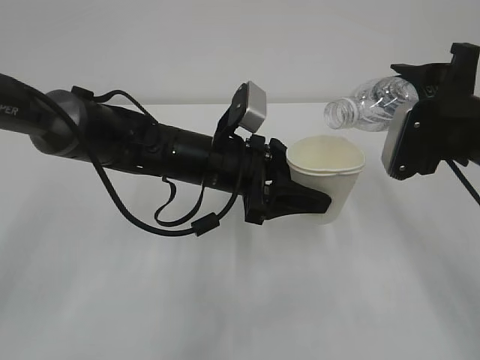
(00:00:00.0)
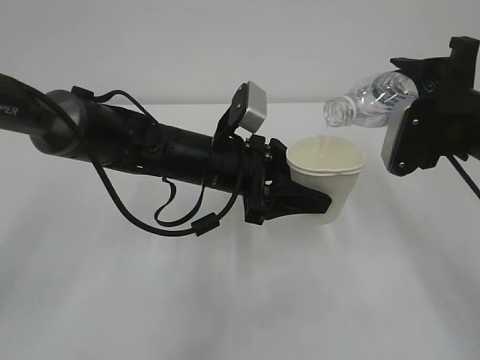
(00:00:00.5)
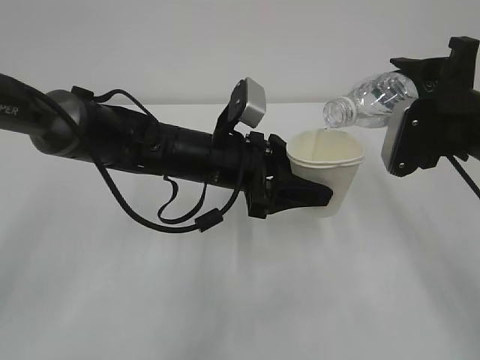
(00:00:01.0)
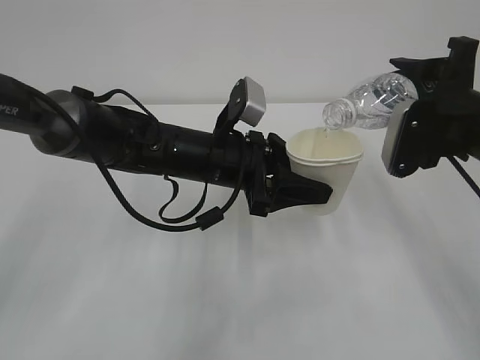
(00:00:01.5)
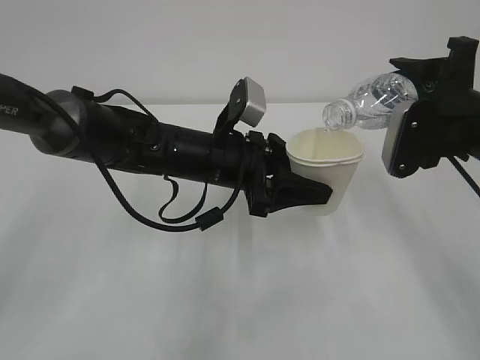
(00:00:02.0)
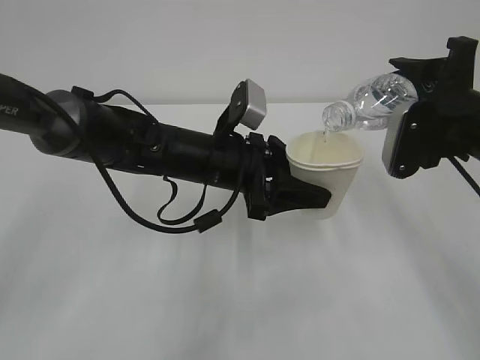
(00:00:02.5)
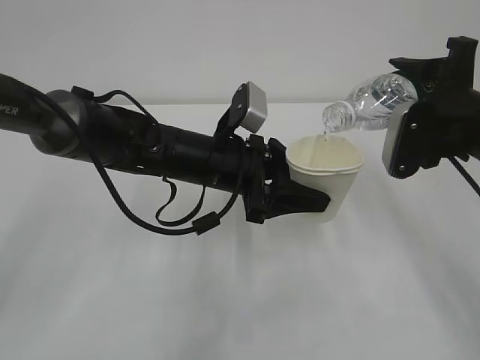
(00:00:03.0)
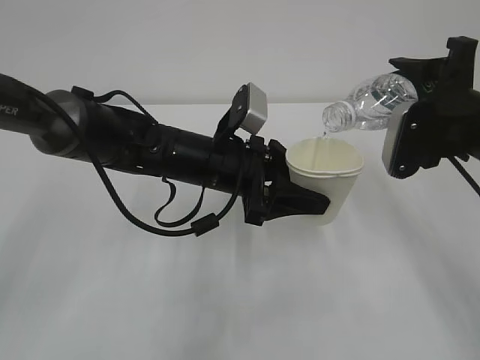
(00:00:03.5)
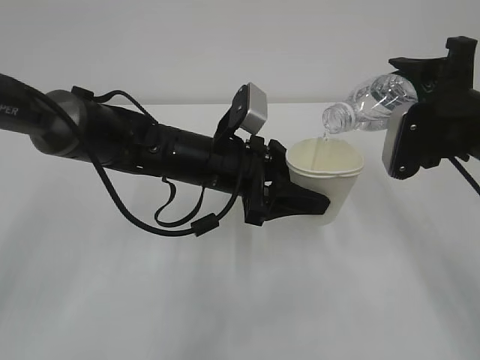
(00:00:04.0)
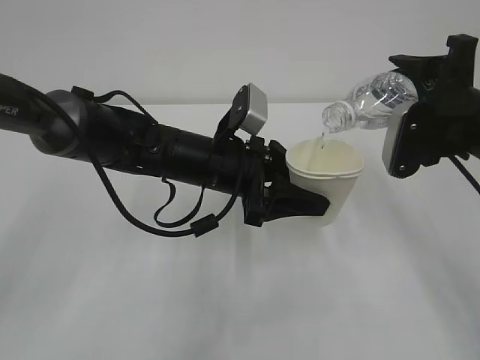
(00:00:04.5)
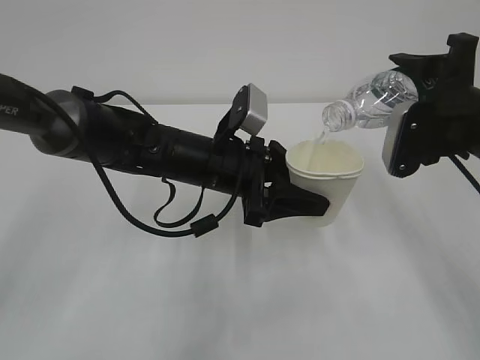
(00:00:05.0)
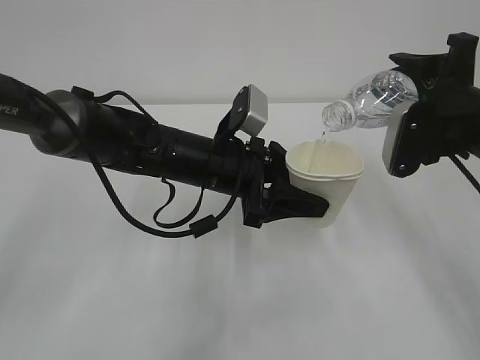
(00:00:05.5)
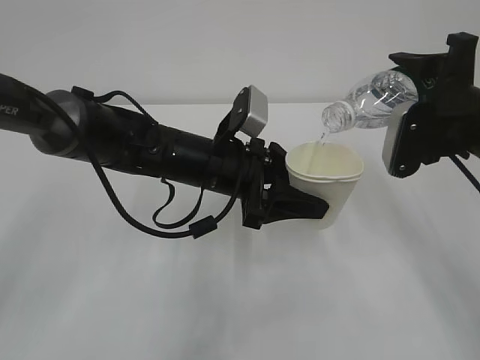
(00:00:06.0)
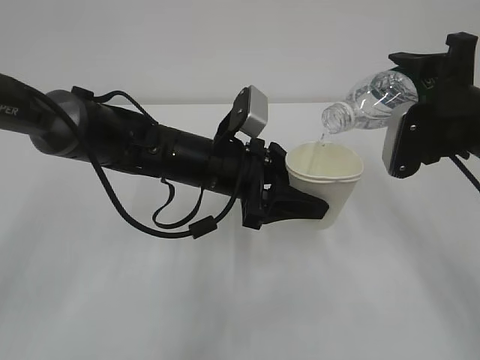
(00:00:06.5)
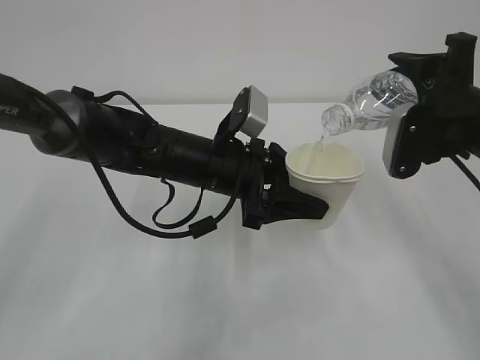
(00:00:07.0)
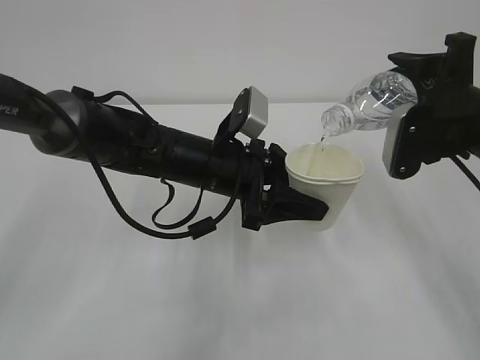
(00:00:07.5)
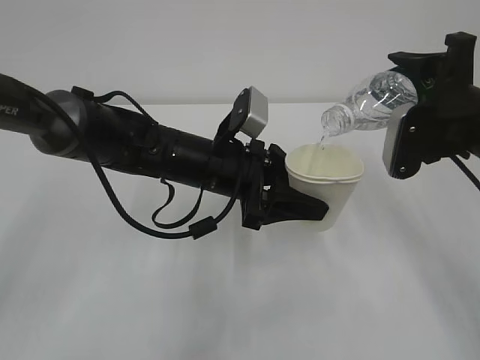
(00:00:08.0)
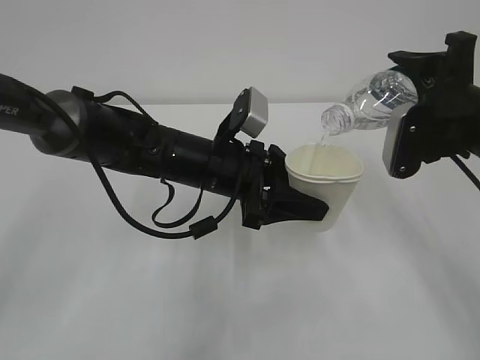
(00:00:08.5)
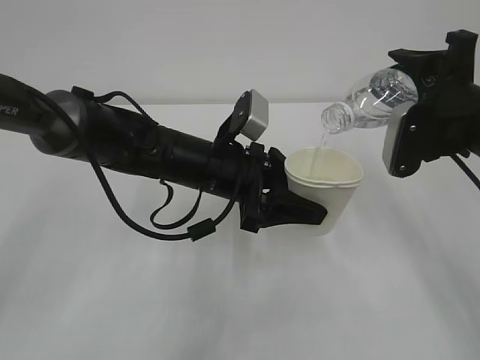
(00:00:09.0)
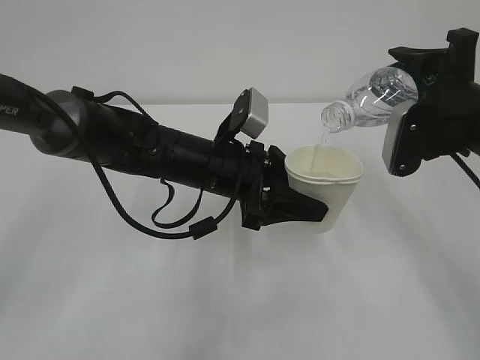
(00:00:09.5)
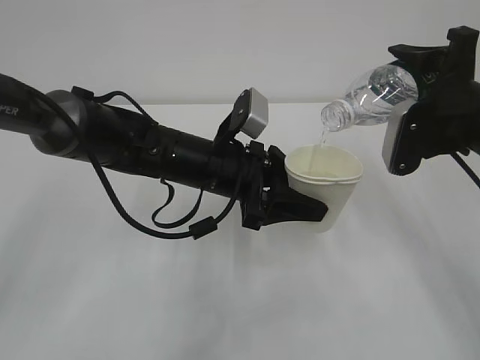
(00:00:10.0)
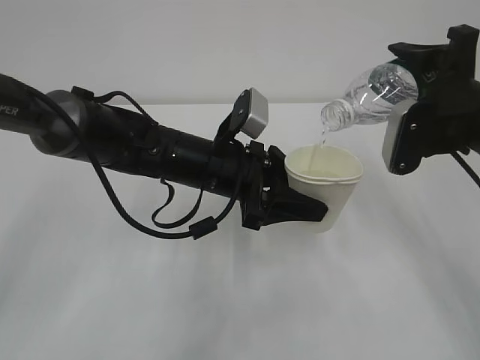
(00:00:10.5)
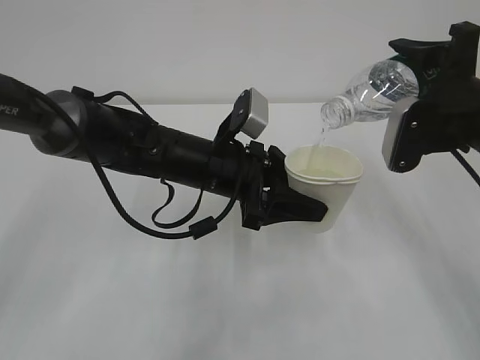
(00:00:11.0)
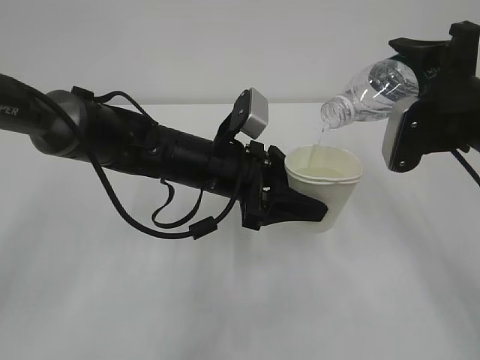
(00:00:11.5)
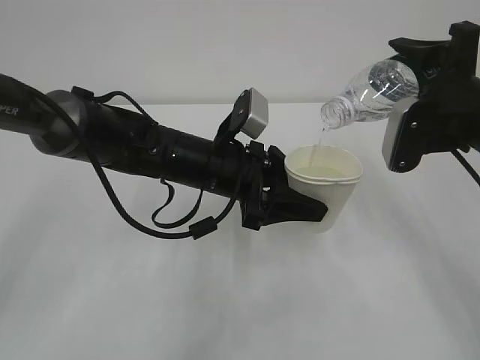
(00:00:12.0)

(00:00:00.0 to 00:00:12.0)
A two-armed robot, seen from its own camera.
00:00:00.0 - 00:00:02.0: Neither gripper changes place.
00:00:02.0 - 00:00:06.0: The two grippers keep their place.
00:00:06.0 - 00:00:10.0: Neither gripper changes place.
00:00:10.0 - 00:00:12.0: Both grippers stay put.

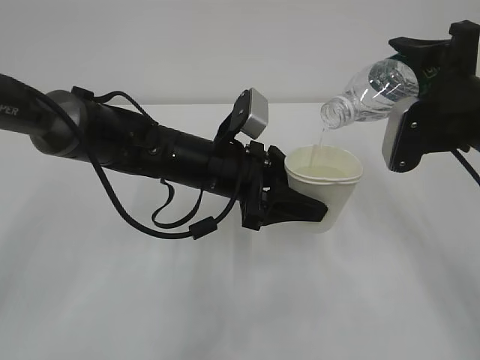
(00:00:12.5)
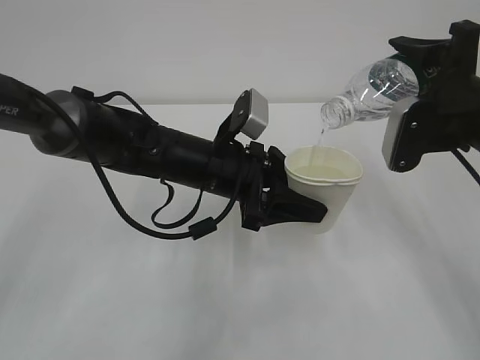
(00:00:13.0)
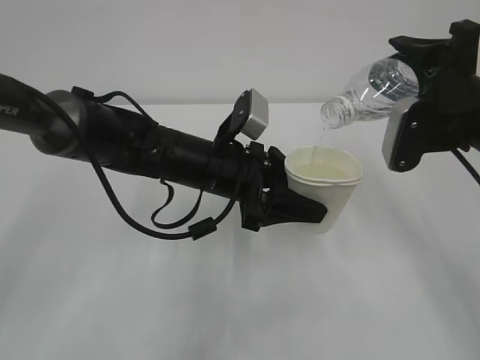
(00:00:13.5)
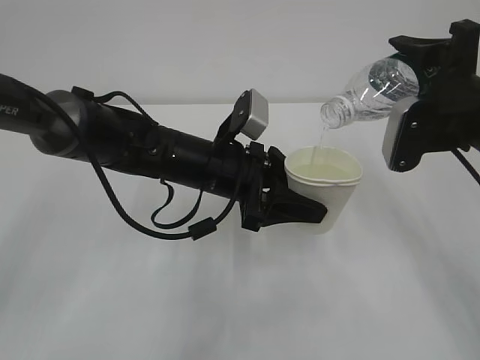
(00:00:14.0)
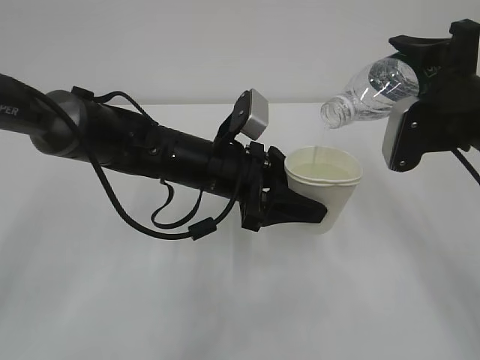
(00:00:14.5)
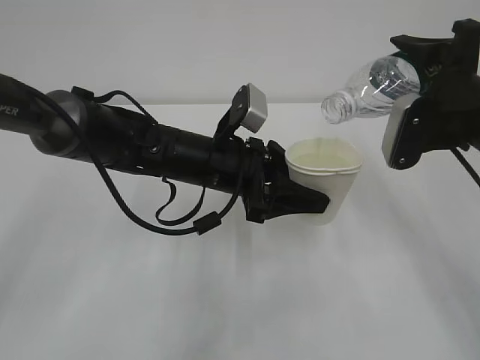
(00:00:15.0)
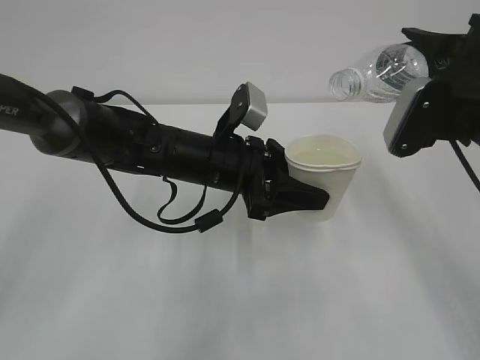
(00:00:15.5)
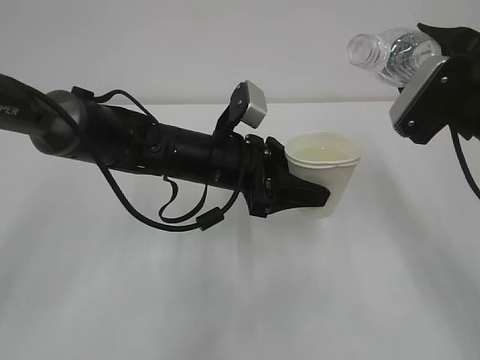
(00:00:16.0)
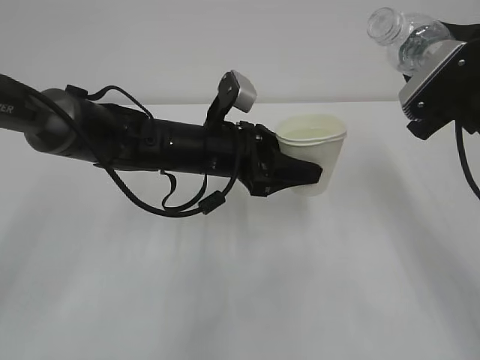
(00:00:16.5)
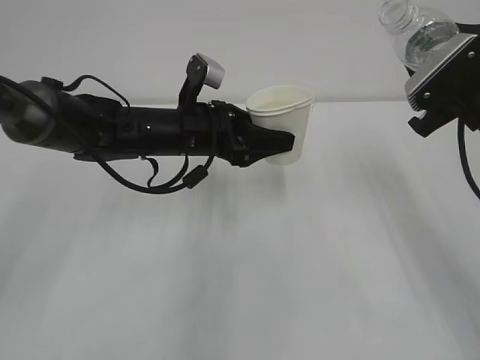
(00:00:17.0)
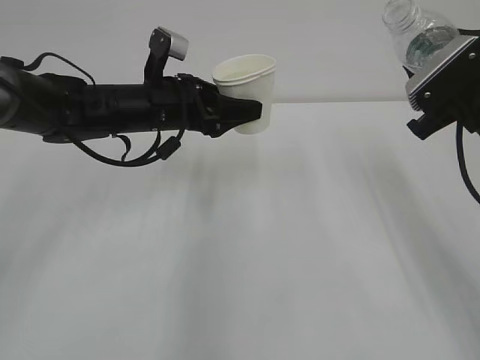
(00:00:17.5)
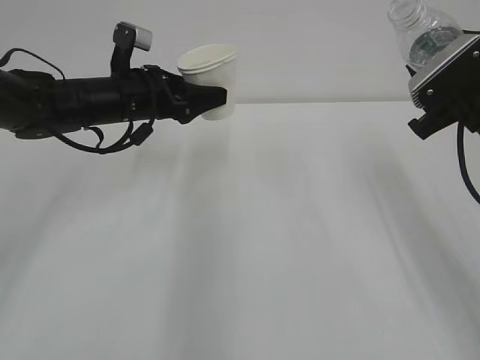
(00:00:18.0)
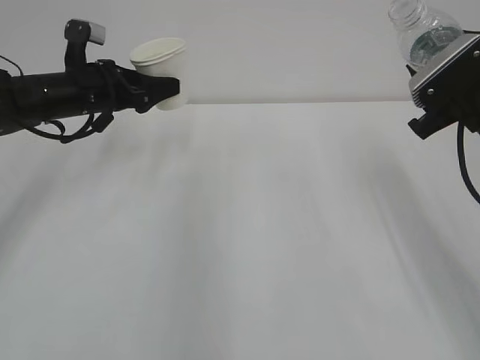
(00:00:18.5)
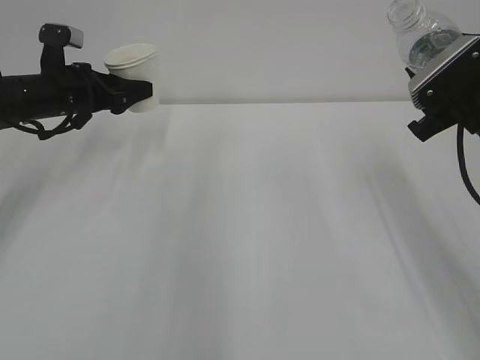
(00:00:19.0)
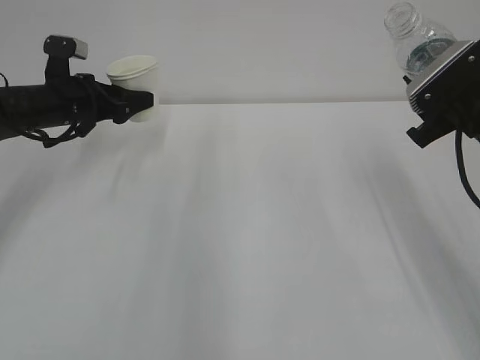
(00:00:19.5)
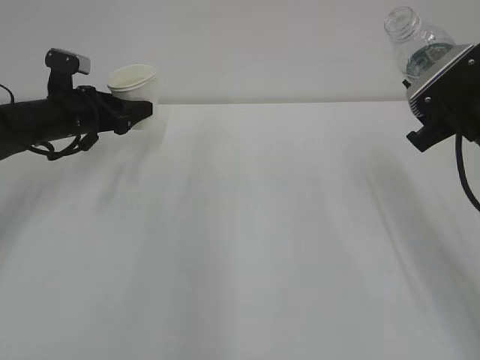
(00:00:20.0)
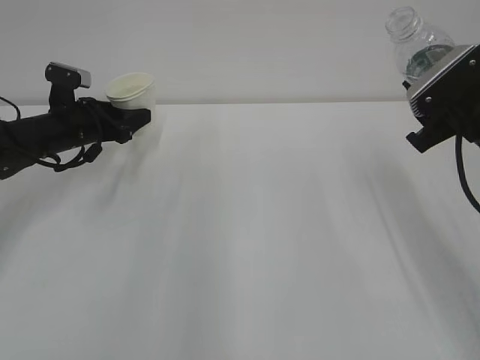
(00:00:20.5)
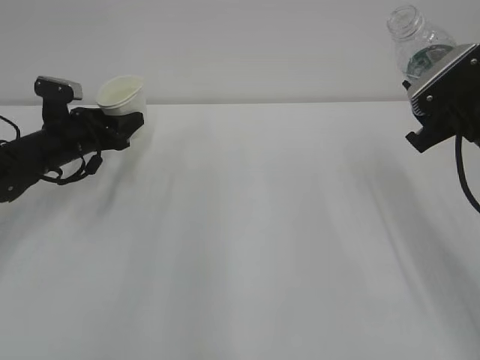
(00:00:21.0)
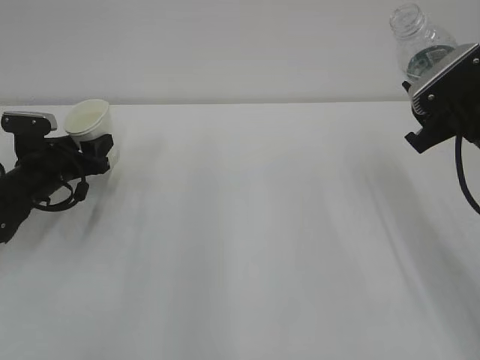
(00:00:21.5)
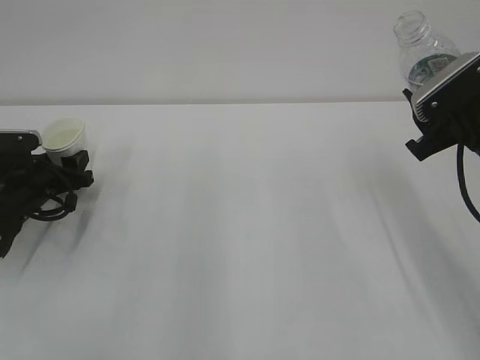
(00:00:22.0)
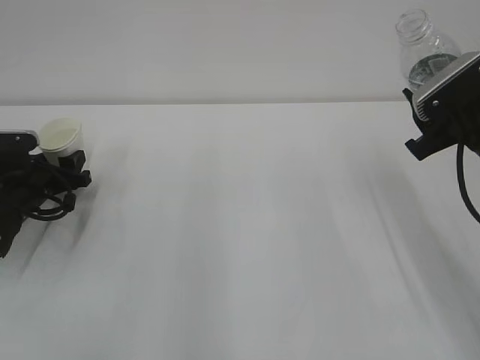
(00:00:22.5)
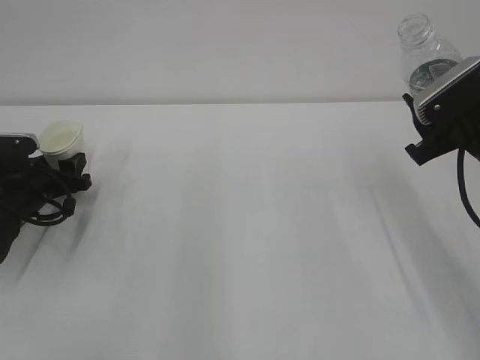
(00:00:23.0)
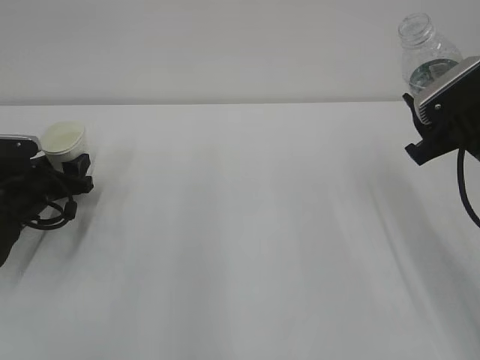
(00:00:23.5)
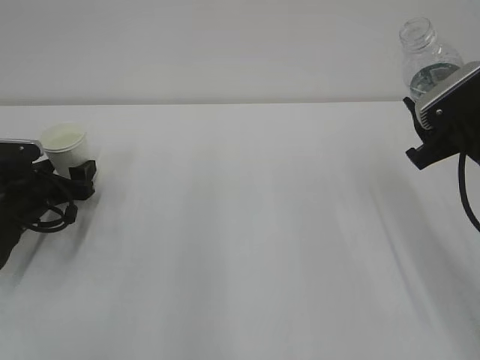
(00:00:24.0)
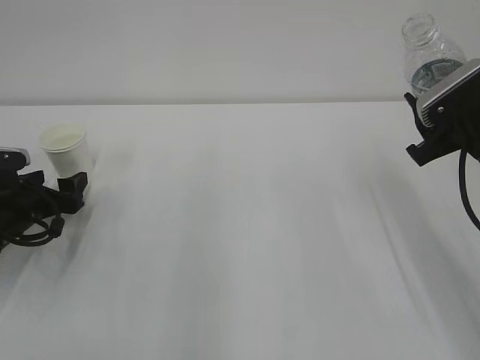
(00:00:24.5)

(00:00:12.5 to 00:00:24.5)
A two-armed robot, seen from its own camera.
00:00:12.5 - 00:00:14.5: Both grippers stay about where they are.
00:00:16.5 - 00:00:18.5: The left gripper travels to the left and forward by approximately 20 cm.
00:00:18.5 - 00:00:20.5: The left gripper is displaced downward by about 5 cm.
00:00:20.5 - 00:00:22.5: The left gripper travels backward, downward and to the left by roughly 10 cm.
00:00:22.5 - 00:00:24.5: The left gripper opens its fingers.

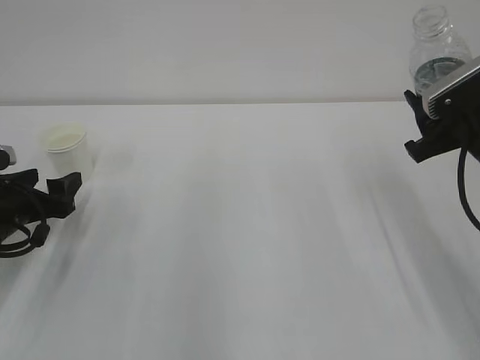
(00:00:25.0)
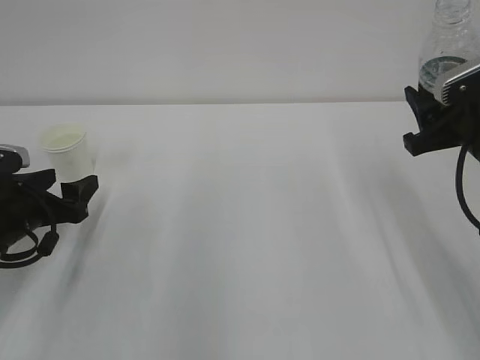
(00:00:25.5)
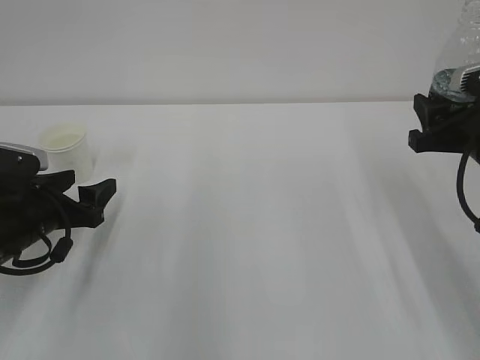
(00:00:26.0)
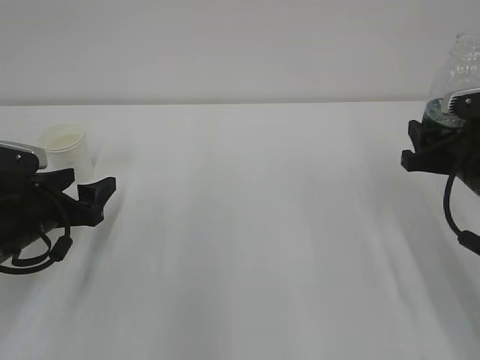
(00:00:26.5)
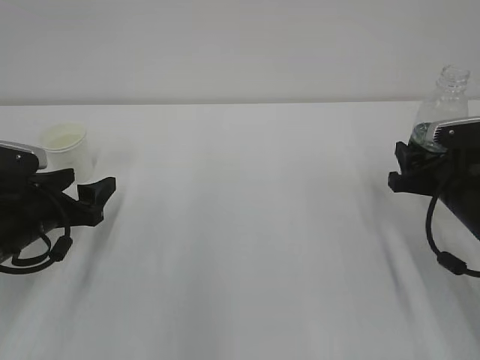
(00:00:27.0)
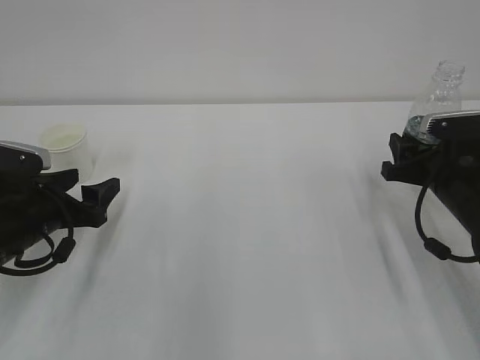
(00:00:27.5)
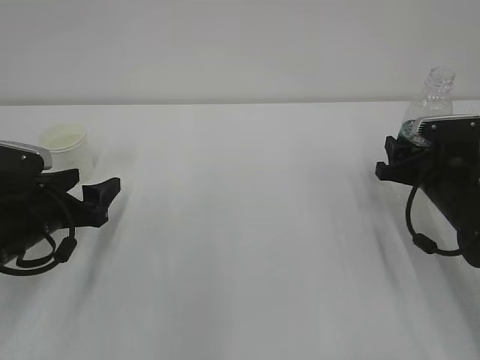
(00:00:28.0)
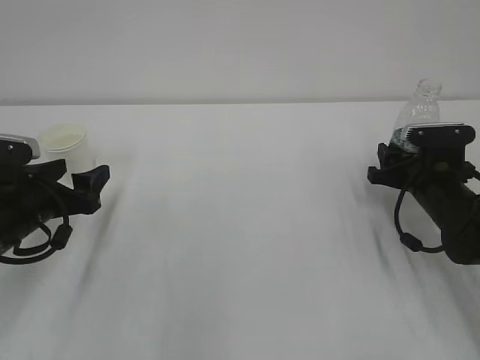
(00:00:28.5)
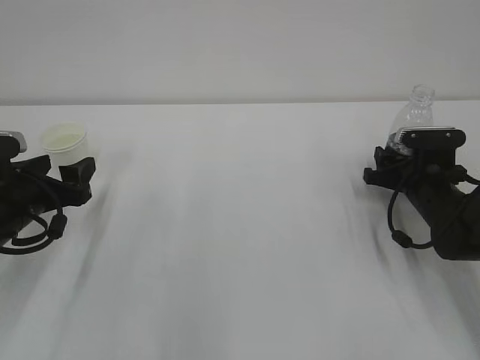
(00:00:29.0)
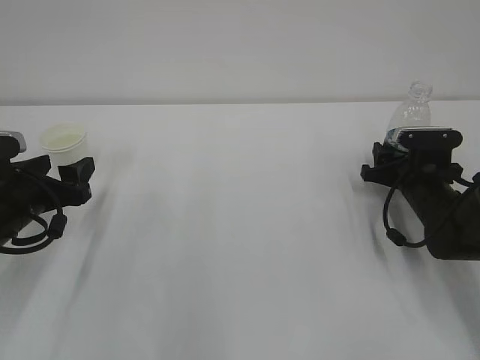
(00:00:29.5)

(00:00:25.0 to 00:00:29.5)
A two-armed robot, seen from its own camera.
00:00:25.0 - 00:00:27.0: The right gripper is displaced downward by about 10 cm.
00:00:27.0 - 00:00:29.5: The right gripper travels forward and downward by about 10 cm.
